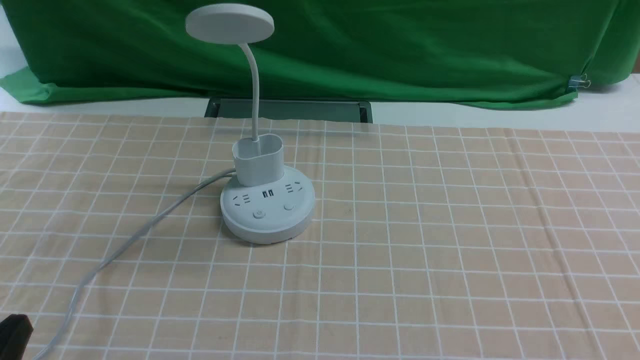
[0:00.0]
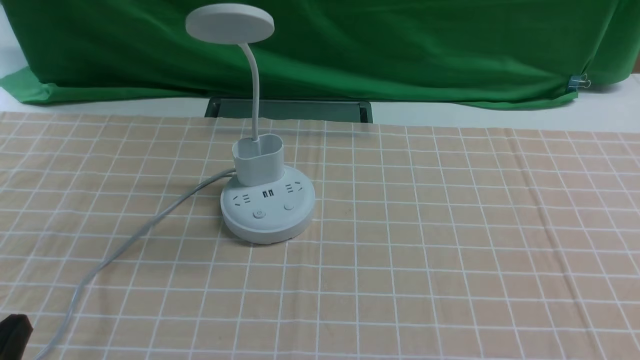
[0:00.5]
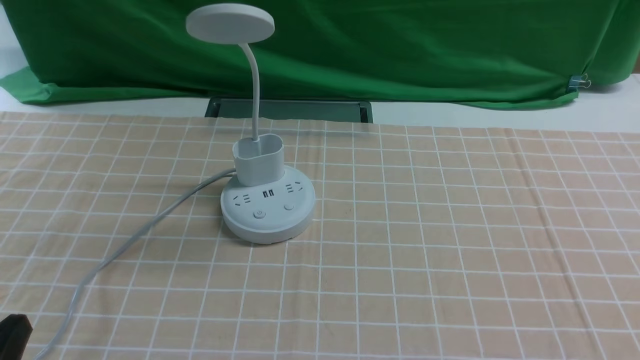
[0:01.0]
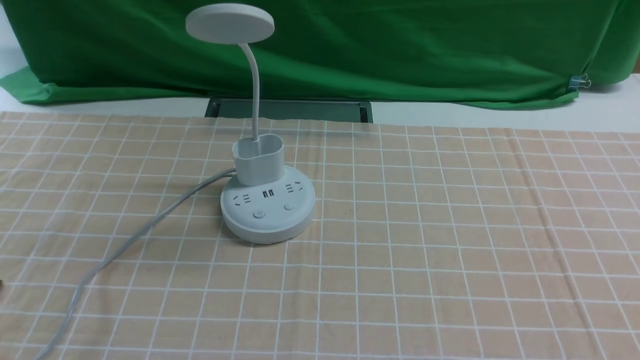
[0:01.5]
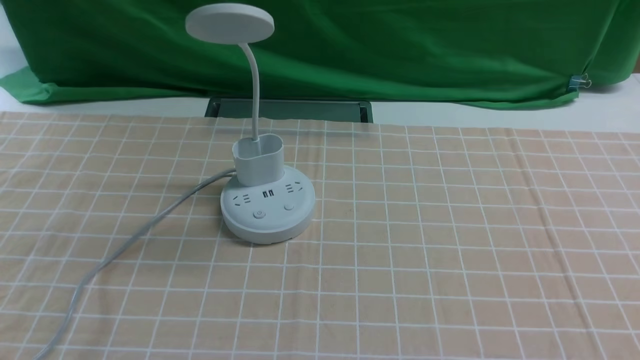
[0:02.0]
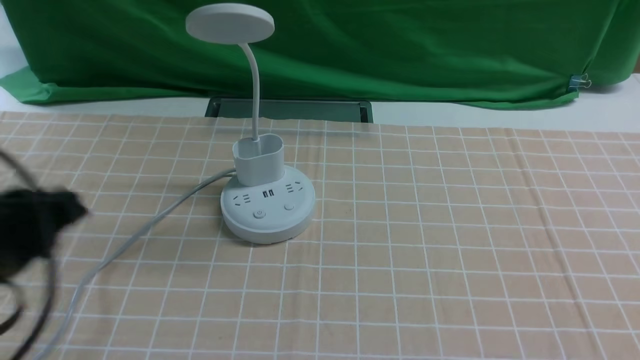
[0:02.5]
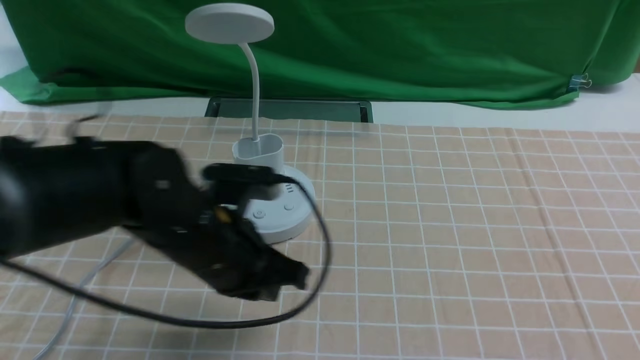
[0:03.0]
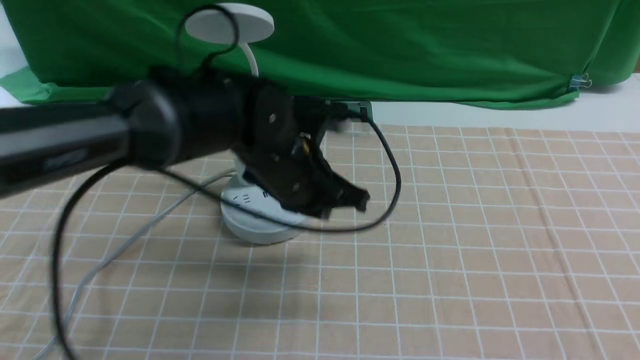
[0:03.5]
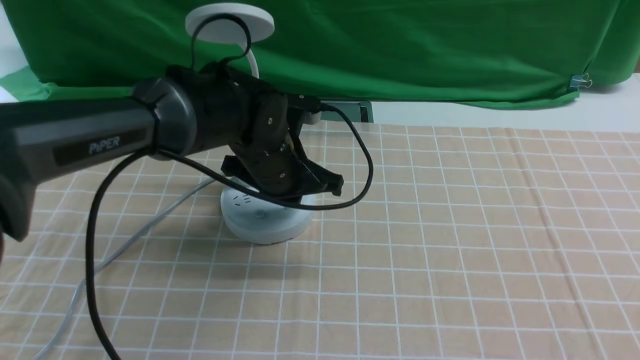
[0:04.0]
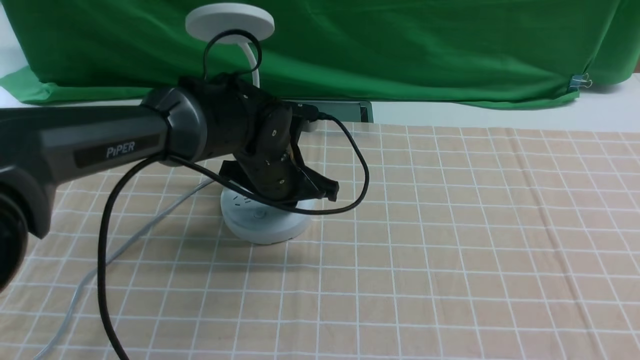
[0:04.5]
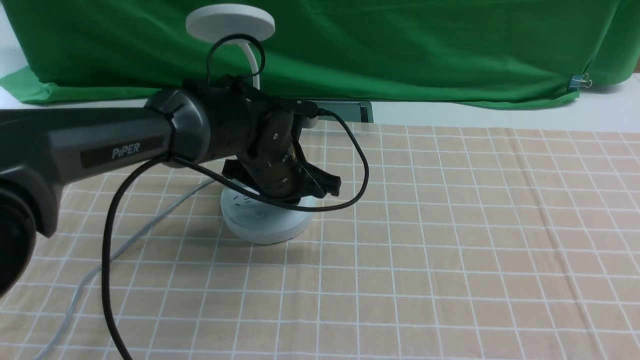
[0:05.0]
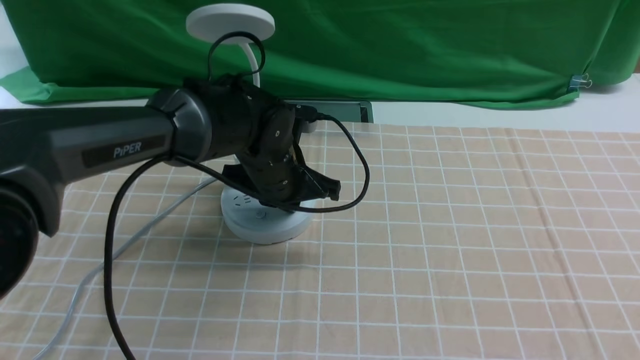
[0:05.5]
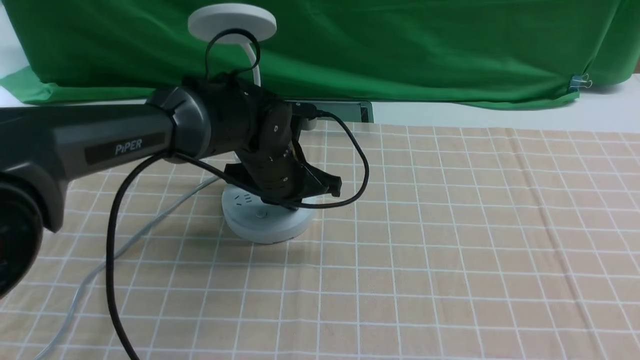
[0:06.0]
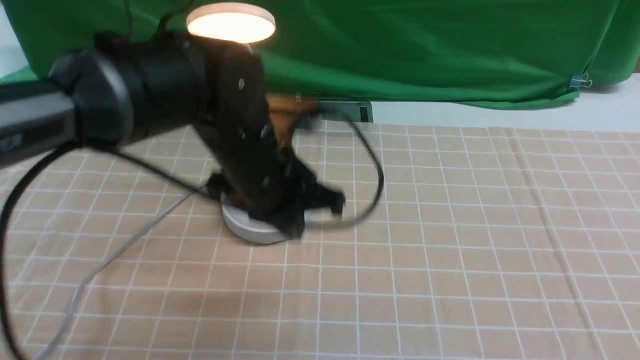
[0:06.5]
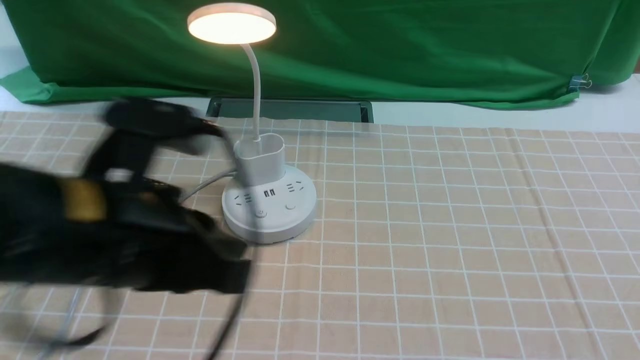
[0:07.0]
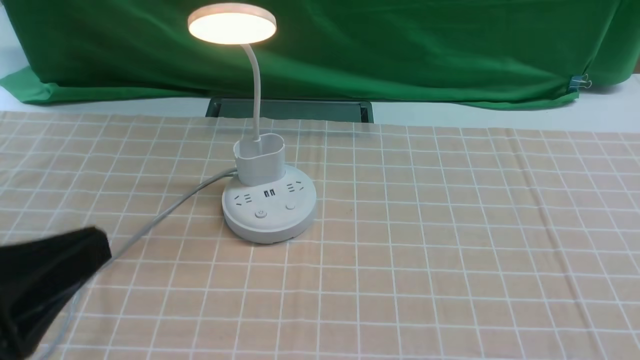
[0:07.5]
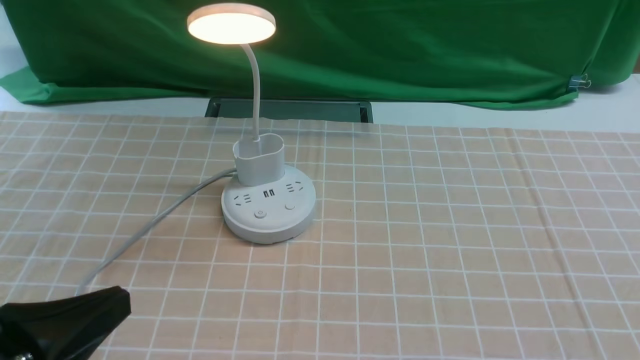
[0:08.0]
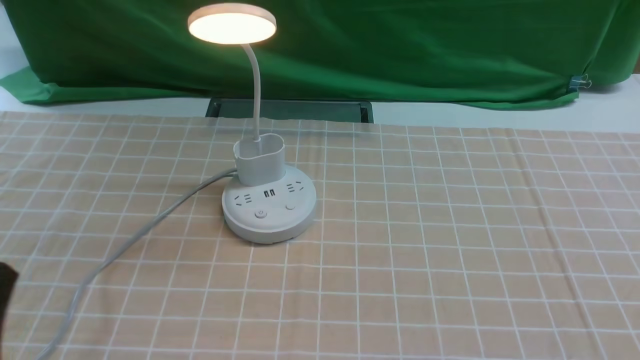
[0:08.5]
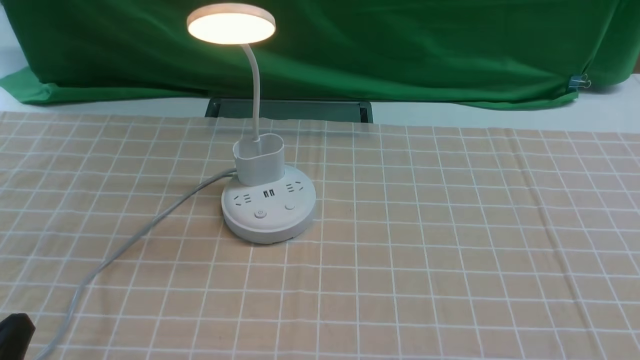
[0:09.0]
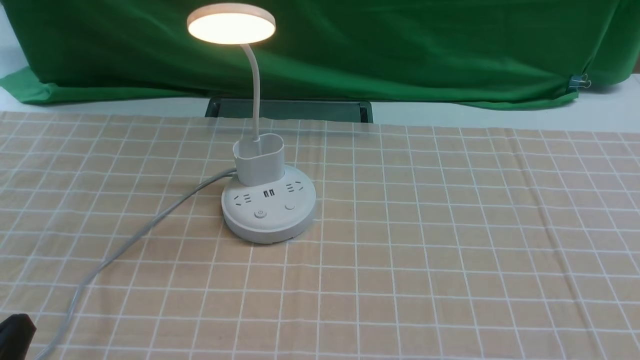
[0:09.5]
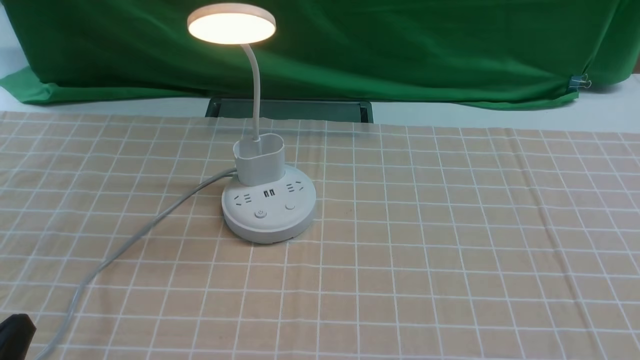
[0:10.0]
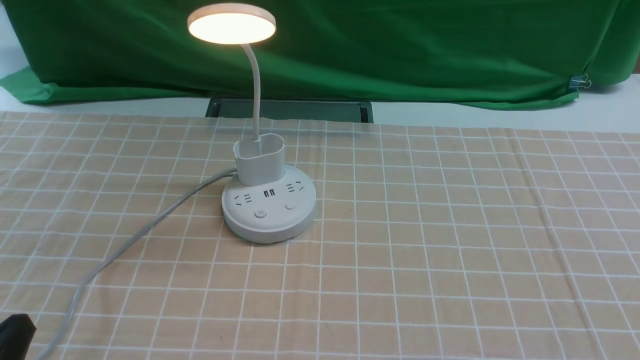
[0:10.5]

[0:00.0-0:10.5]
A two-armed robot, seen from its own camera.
Step, 0:00.0 to 0:06.0: use the left arm to press the button switch on the lamp holder.
0:02.0 to 0:04.0: The left gripper heads forward and to the right, covering approximately 40 cm, and closes its fingers.
0:04.0 to 0:06.5: The left gripper moves backward and upward, roughly 10 cm.
0:06.5 to 0:08.5: The left gripper is displaced backward and to the left by roughly 30 cm.
